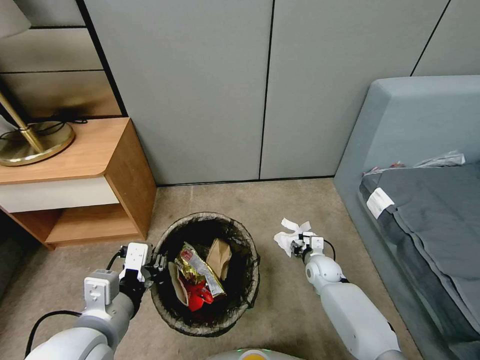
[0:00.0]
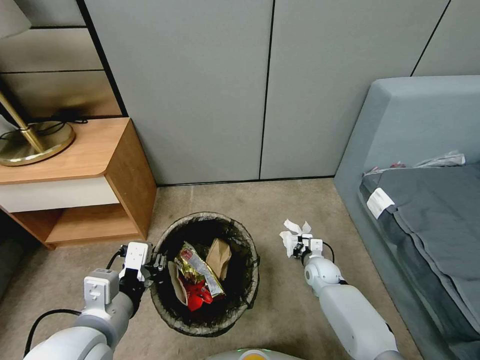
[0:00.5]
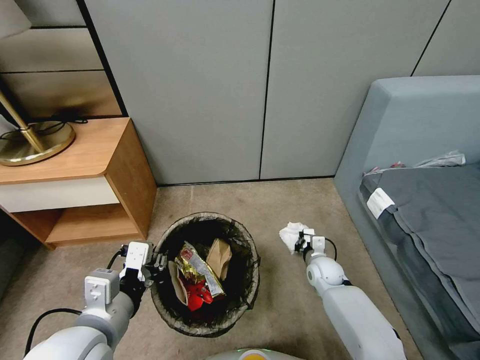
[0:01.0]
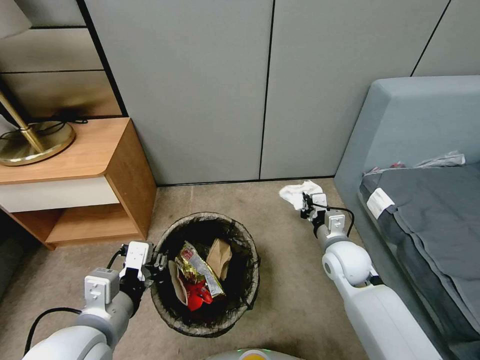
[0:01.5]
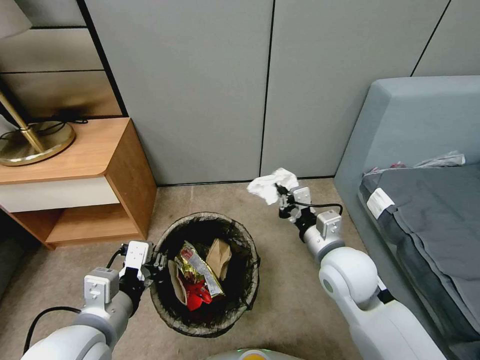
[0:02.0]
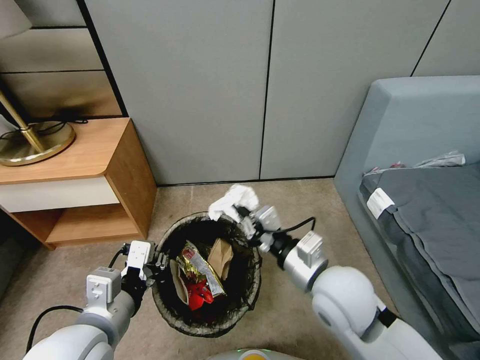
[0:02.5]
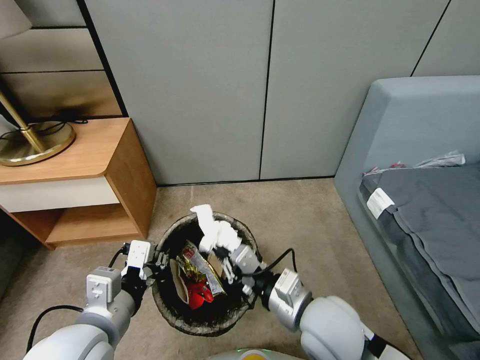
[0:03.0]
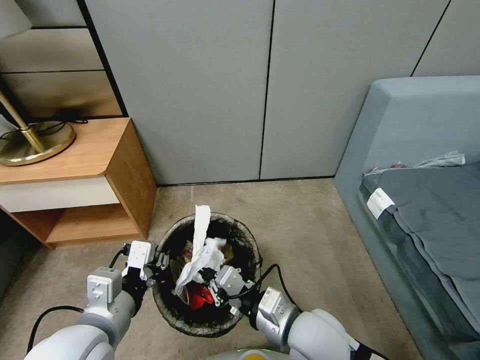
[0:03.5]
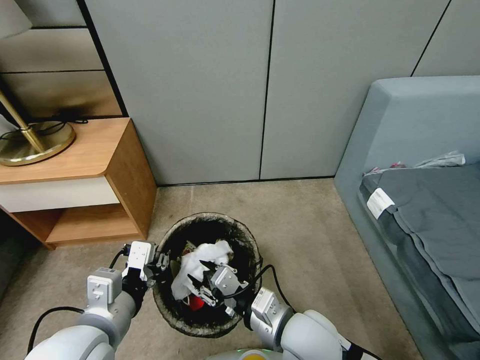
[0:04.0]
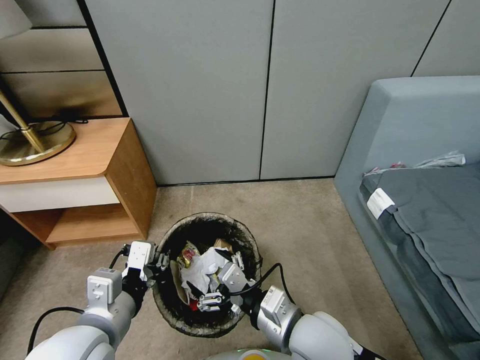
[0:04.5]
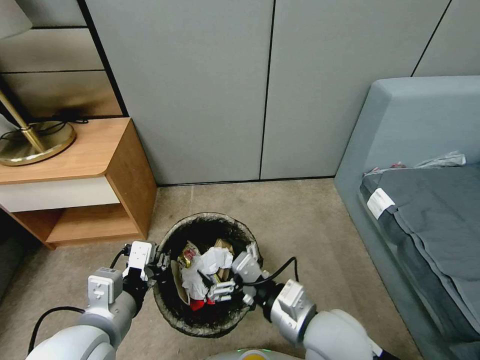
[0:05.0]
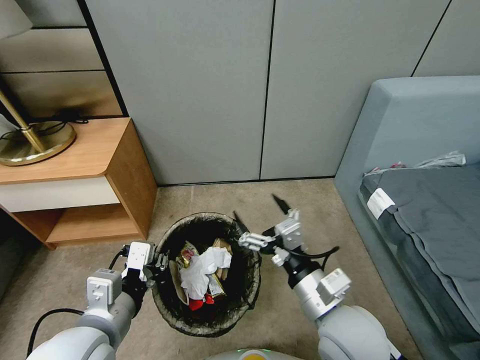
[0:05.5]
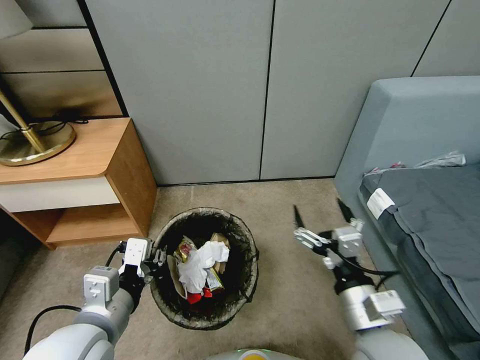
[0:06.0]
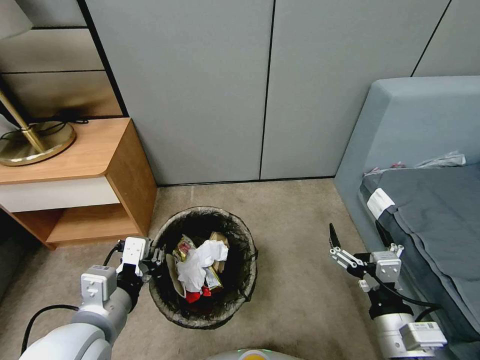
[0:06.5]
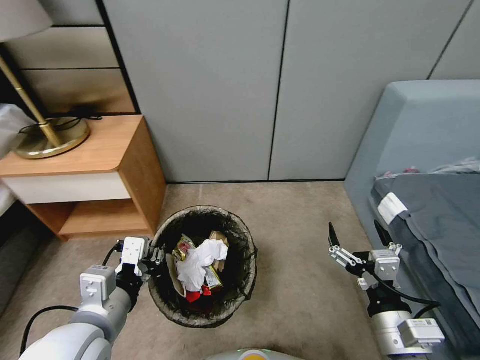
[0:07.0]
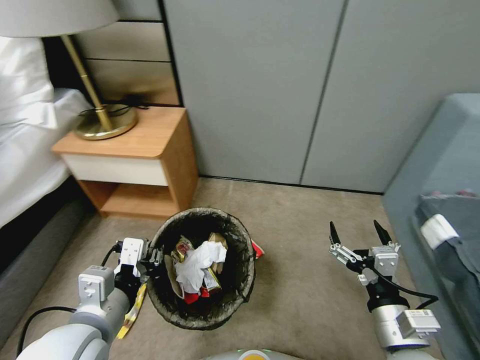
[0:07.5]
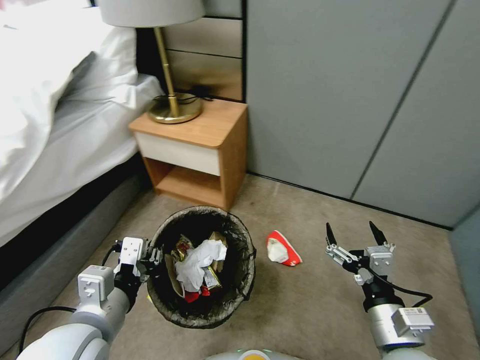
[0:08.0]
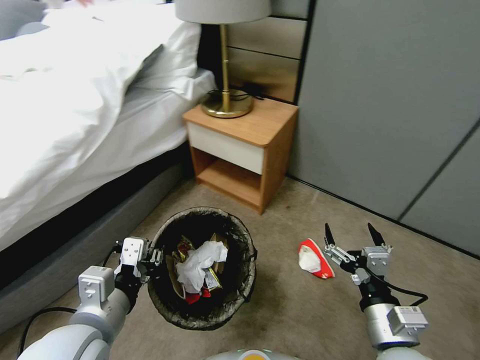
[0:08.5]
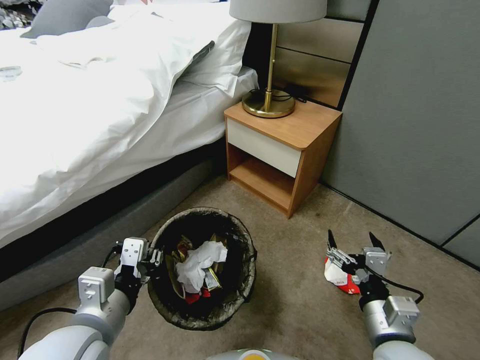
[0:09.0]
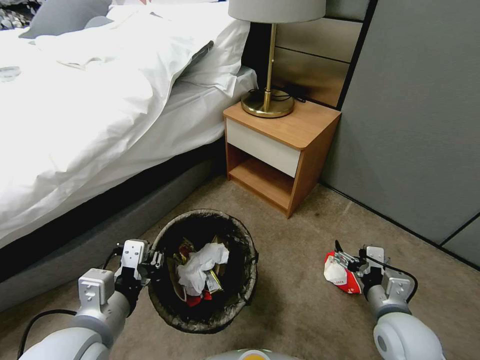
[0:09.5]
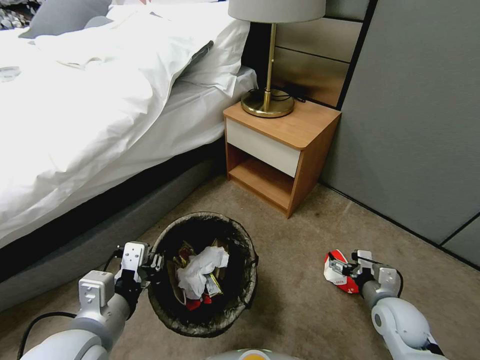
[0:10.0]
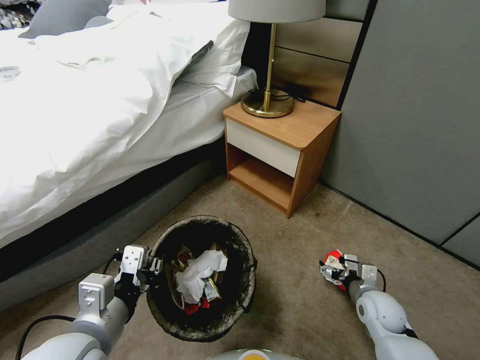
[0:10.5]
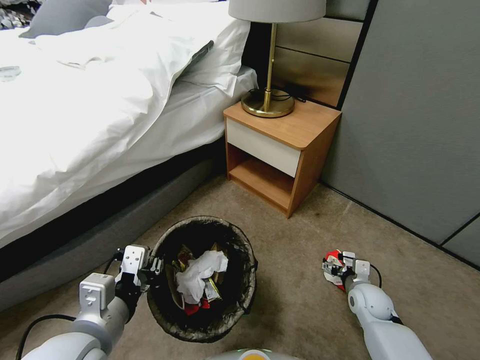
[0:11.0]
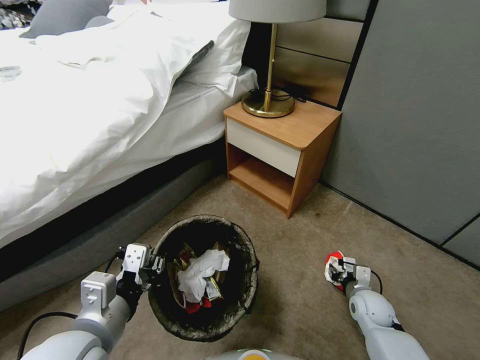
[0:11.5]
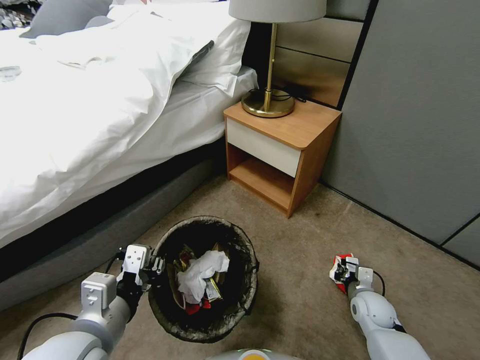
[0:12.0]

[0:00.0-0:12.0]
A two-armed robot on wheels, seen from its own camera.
Task of the whole recording: Pick up the trash bin, then pick up the garbage from the floor and place it into the trash bin.
0:00.0 to 0:02.0: The right gripper is displaced upward by about 25 cm, and closes its fingers.
0:02.0 to 0:04.0: The right gripper is displaced backward and to the left by roughly 15 cm, and opens up.
0:04.0 to 0:06.0: The right gripper is displaced to the right by roughly 10 cm, and opens up.
0:06.0 to 0:08.0: The right gripper changes place by approximately 5 cm.
0:08.0 to 0:10.0: The right gripper moves downward, forward and to the right, approximately 20 cm.
0:10.0 to 0:12.0: The right gripper travels downward by approximately 10 cm, and closes up.

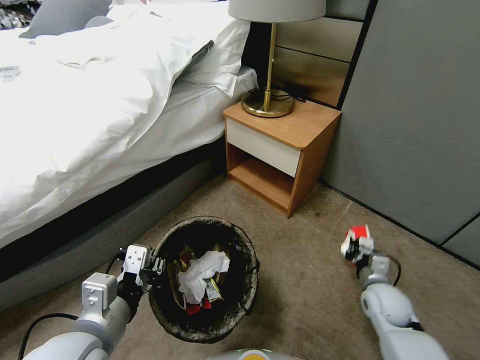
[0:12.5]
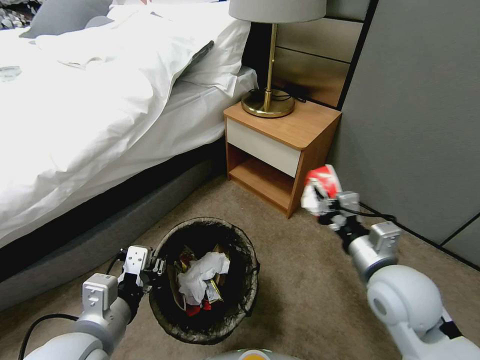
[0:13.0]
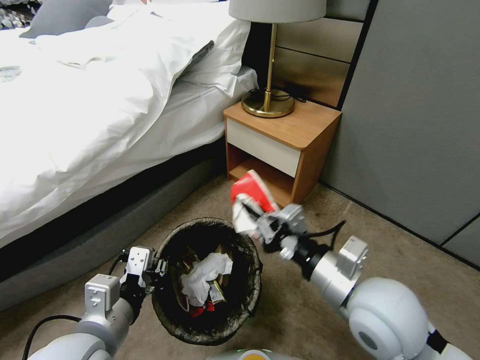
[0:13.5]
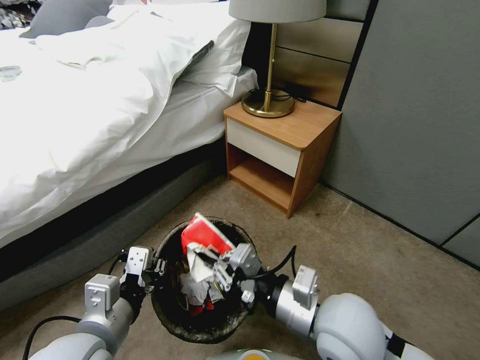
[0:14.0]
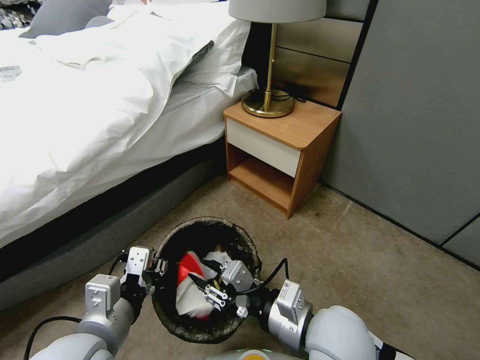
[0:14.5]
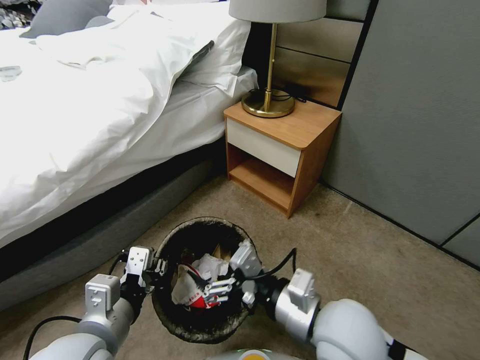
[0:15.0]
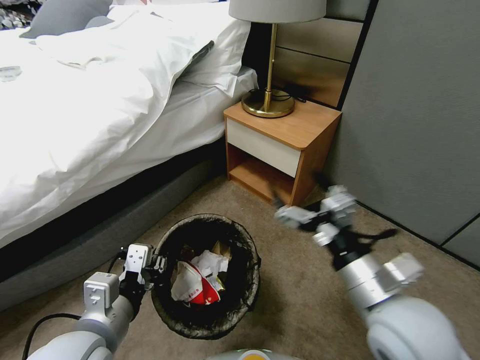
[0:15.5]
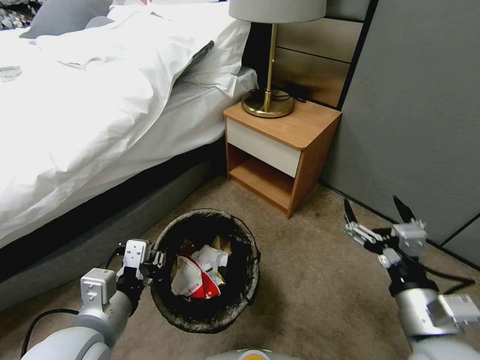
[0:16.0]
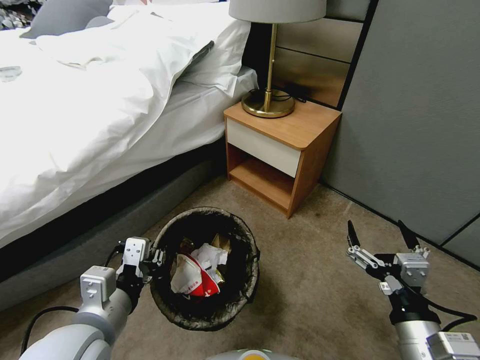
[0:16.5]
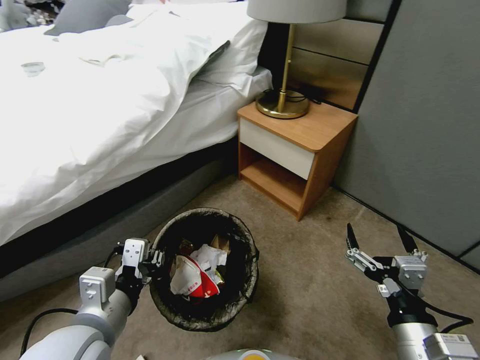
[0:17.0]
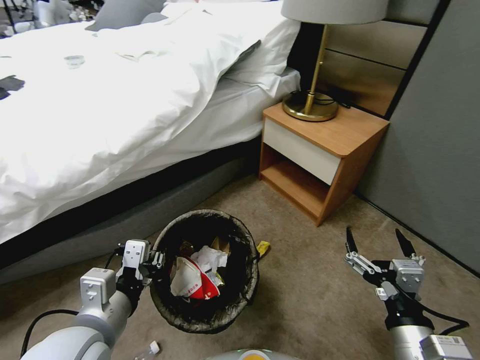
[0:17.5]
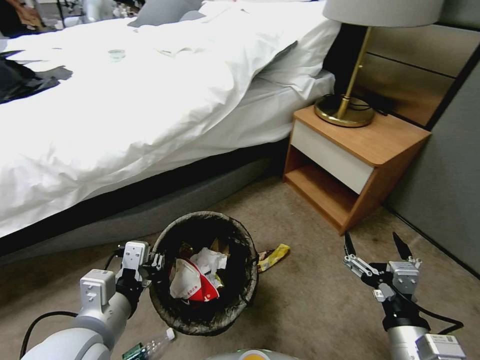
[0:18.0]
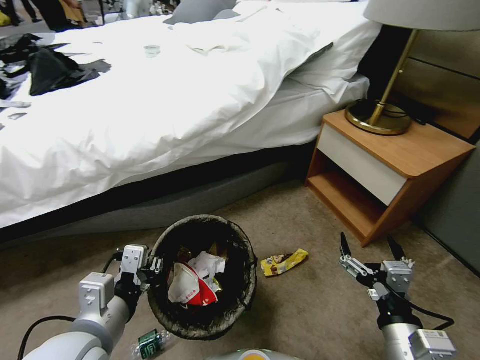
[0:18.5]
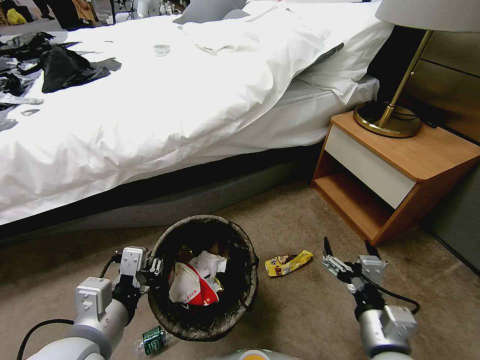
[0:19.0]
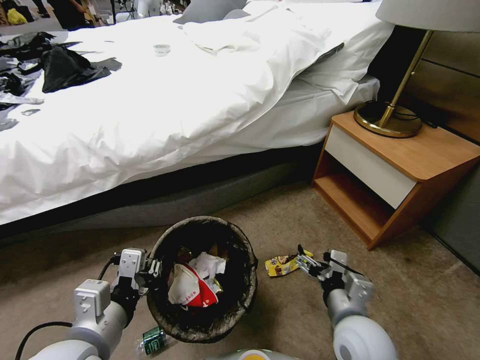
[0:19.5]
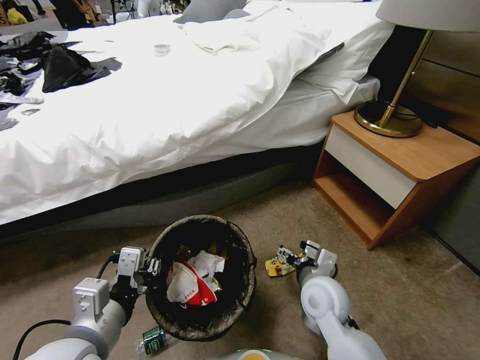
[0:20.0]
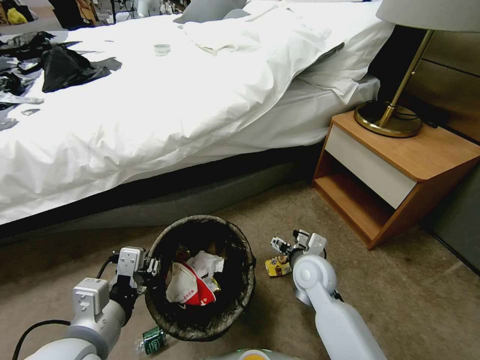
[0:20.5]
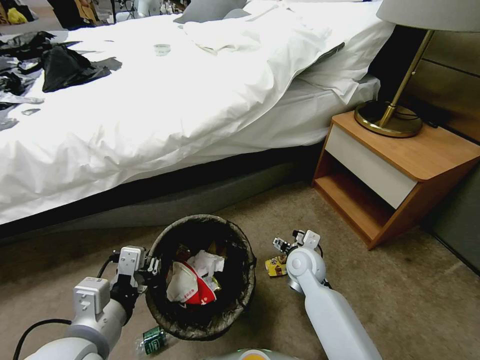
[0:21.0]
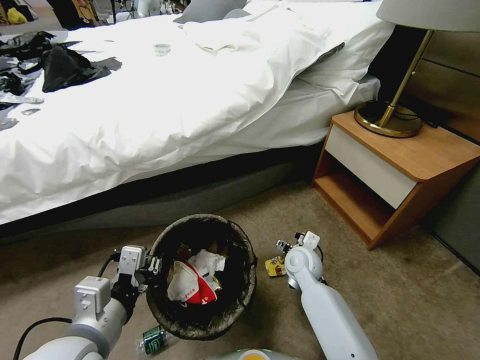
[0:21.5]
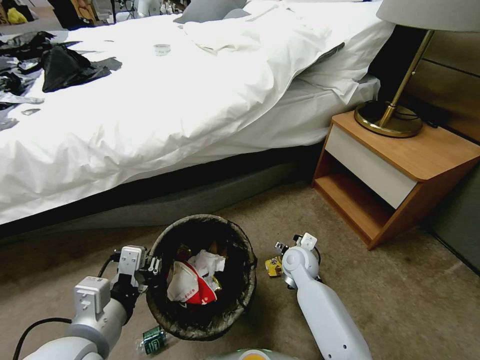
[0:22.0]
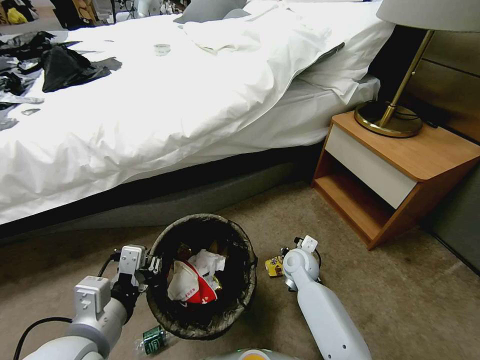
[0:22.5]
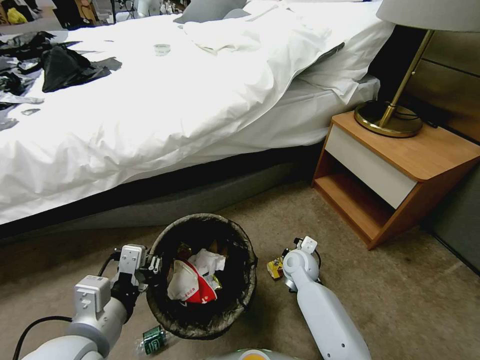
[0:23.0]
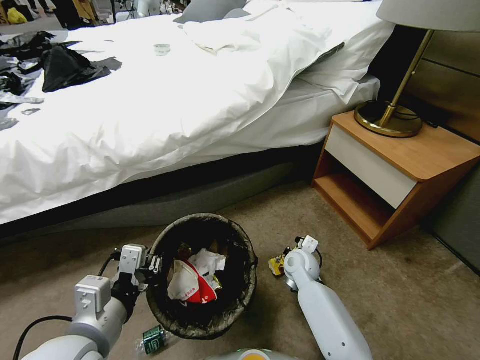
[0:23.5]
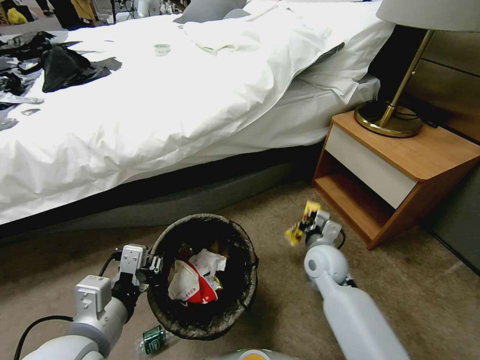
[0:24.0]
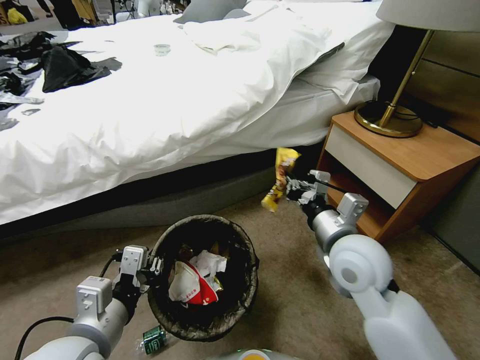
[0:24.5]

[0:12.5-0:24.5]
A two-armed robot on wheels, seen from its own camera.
Task of the whole recording: Pick up the trash bin, then pick up the garbage from the floor and place it into the trash bin.
0:12.5 to 0:14.5: The right gripper shifts about 30 cm to the left, upward and backward.
0:14.5 to 0:16.5: The right gripper shifts roughly 15 cm to the right and backward, and opens up.
0:18.5 to 0:20.5: The right gripper heads forward and to the left, covering some 25 cm.
0:20.5 to 0:22.5: The right gripper travels downward and forward by approximately 10 cm, and closes.
0:22.5 to 0:24.5: The right gripper moves upward, about 25 cm, and closes.

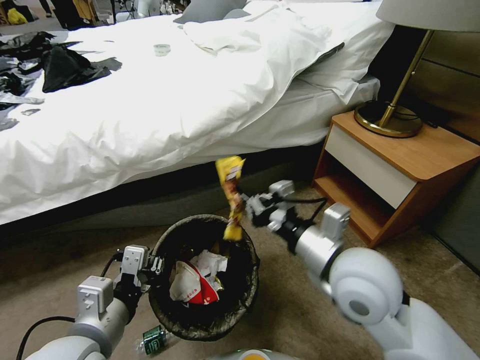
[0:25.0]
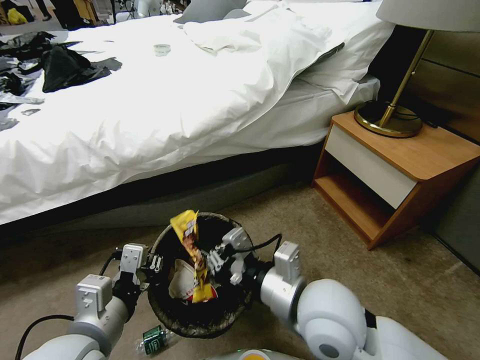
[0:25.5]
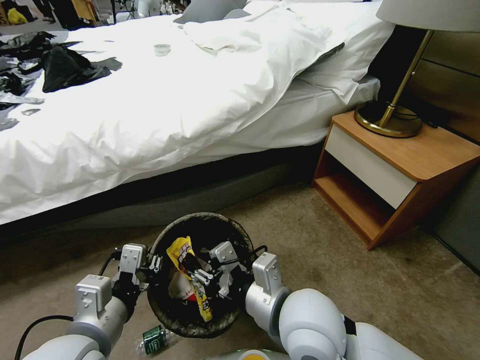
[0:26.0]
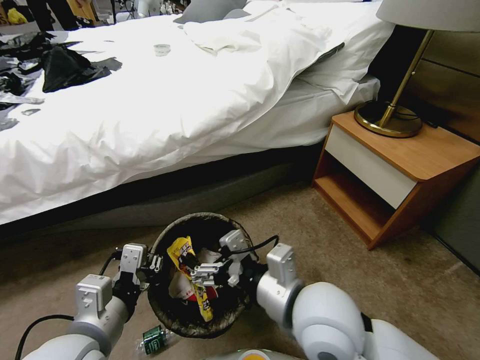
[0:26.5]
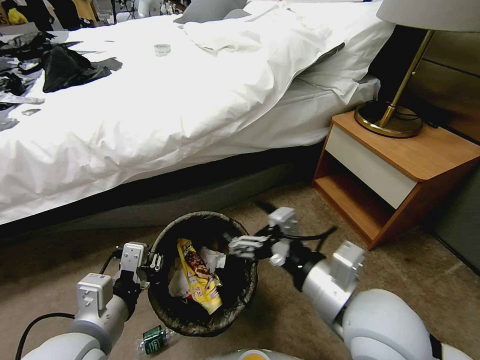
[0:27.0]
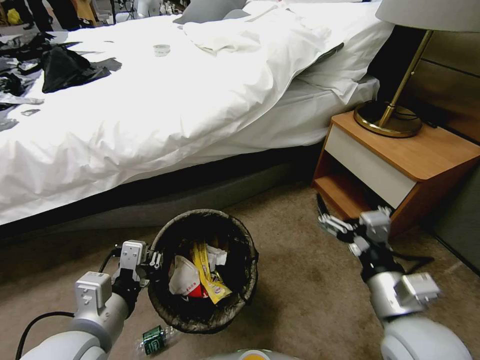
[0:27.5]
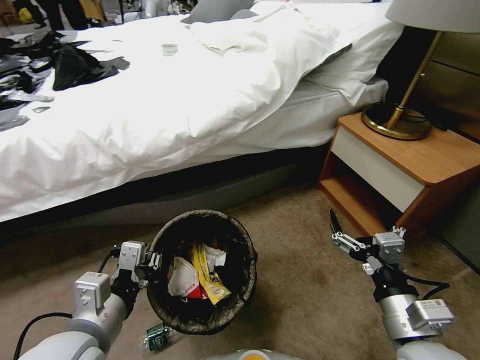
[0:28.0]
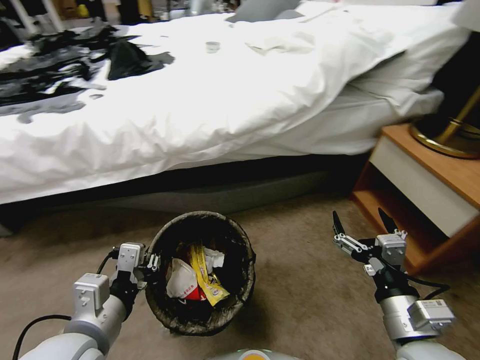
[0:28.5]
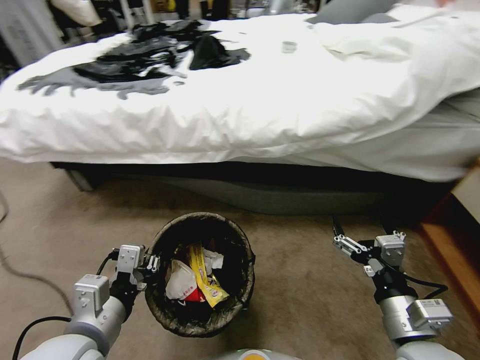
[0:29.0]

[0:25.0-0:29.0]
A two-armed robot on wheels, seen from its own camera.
Task of the whole recording: Pick up the trash bin, then pick up the garbage from the floor and place it into the trash bin.
0:25.0 to 0:27.0: The right gripper goes some 5 cm backward, moves some 10 cm to the left and comes back, and opens.
0:27.0 to 0:29.0: The right gripper travels to the right and downward by some 15 cm.
